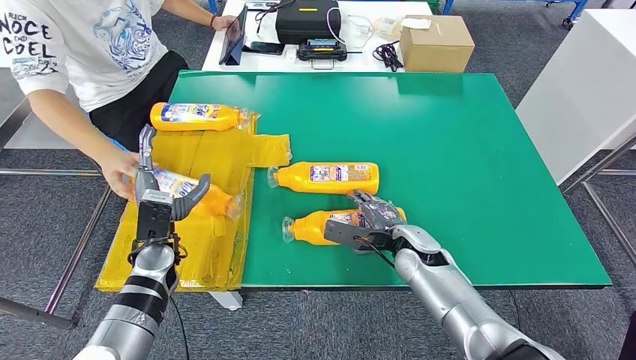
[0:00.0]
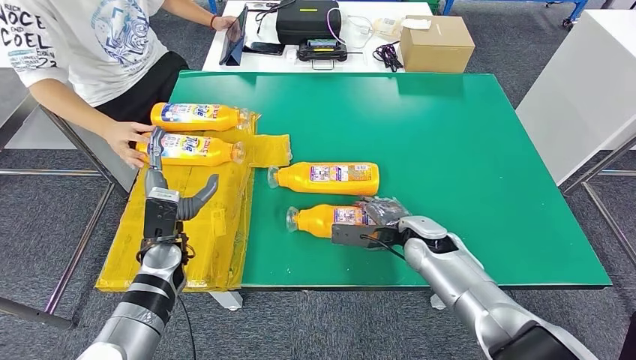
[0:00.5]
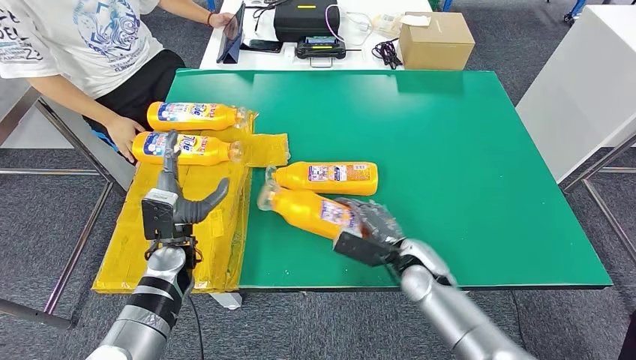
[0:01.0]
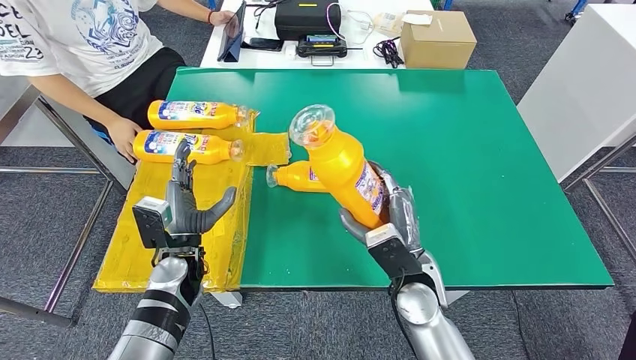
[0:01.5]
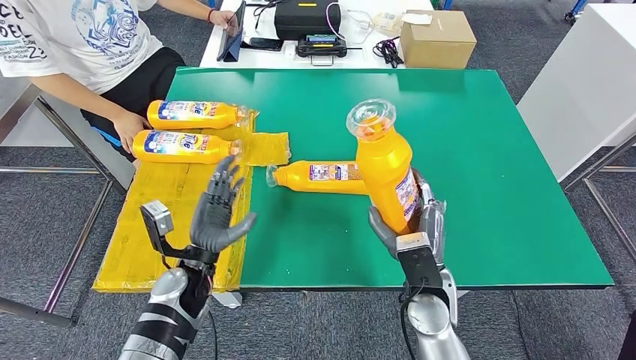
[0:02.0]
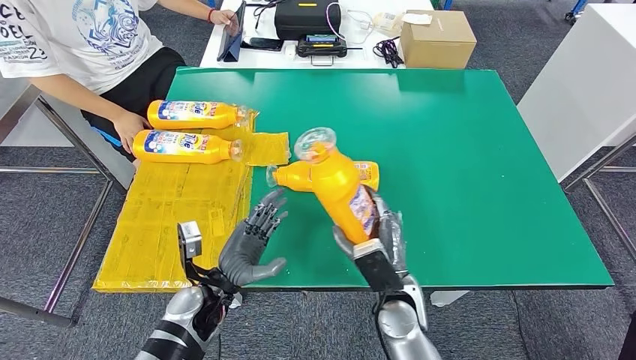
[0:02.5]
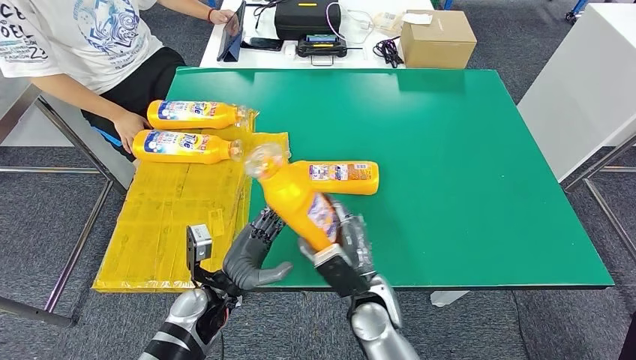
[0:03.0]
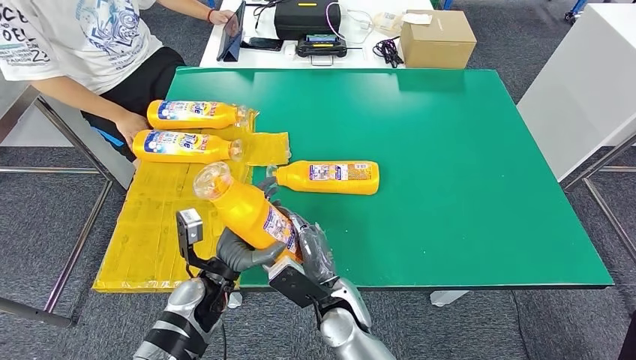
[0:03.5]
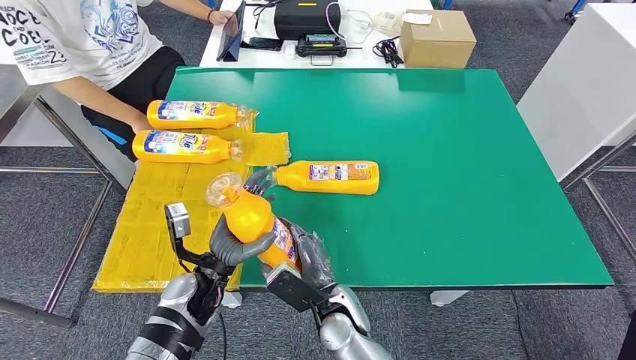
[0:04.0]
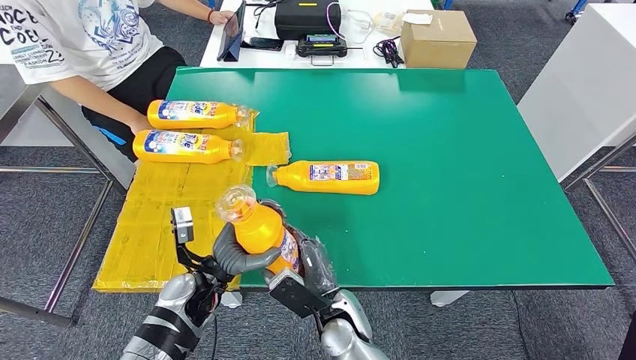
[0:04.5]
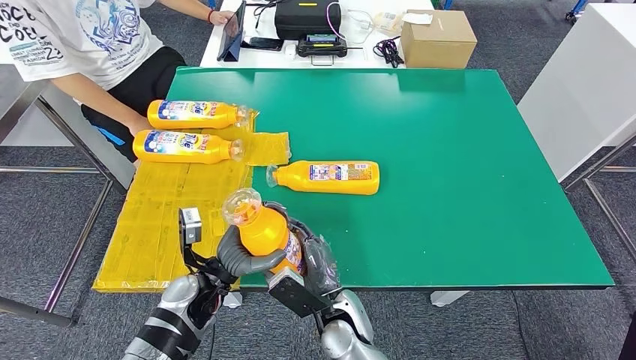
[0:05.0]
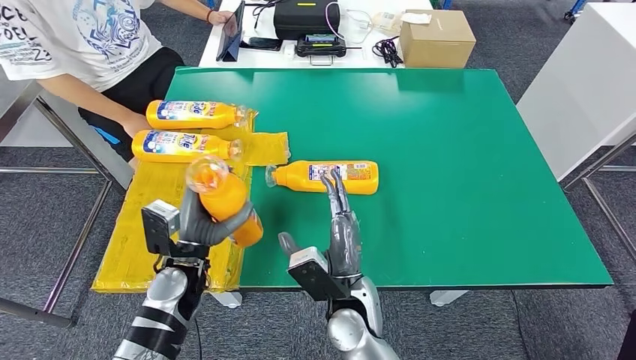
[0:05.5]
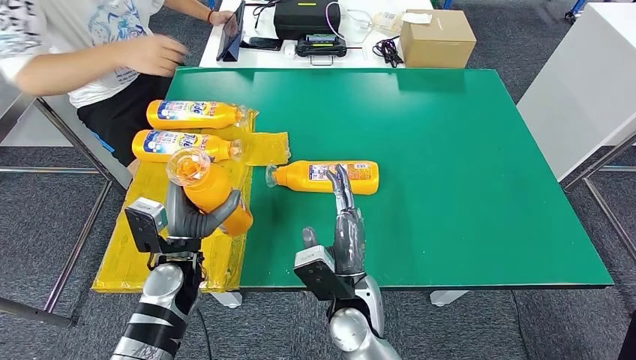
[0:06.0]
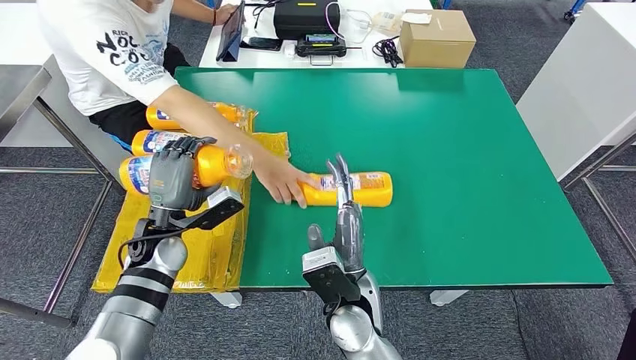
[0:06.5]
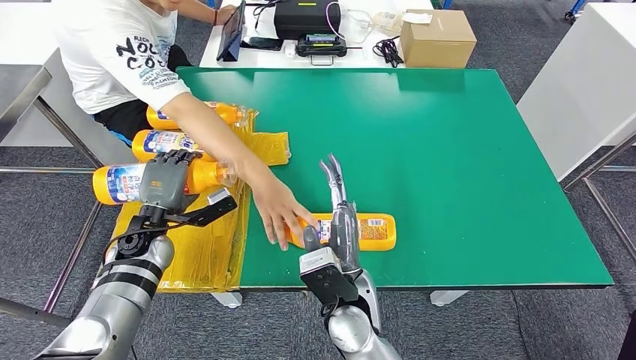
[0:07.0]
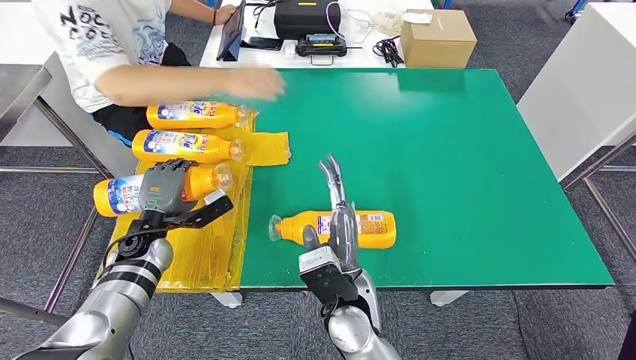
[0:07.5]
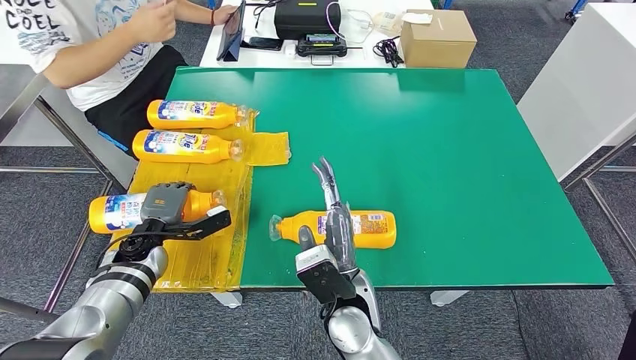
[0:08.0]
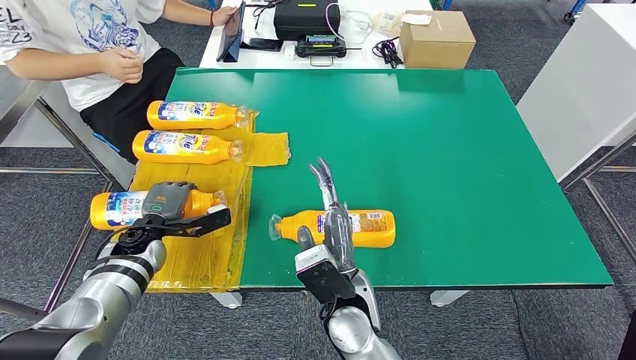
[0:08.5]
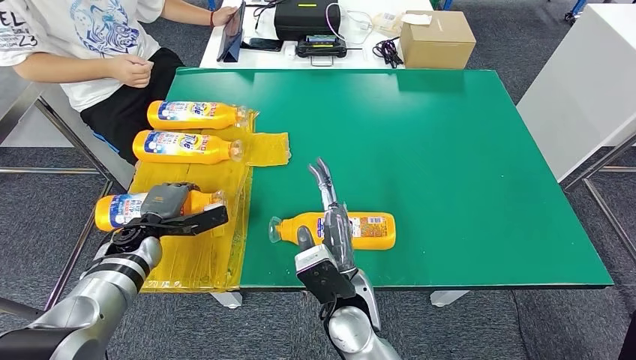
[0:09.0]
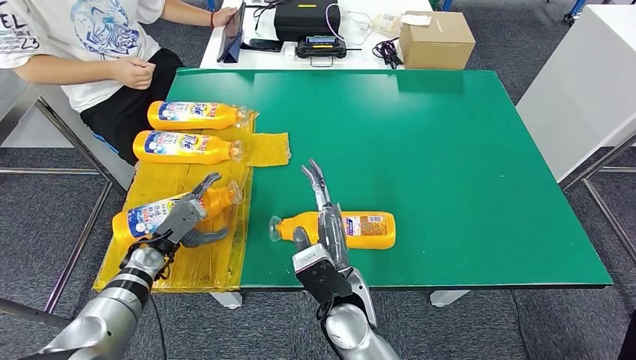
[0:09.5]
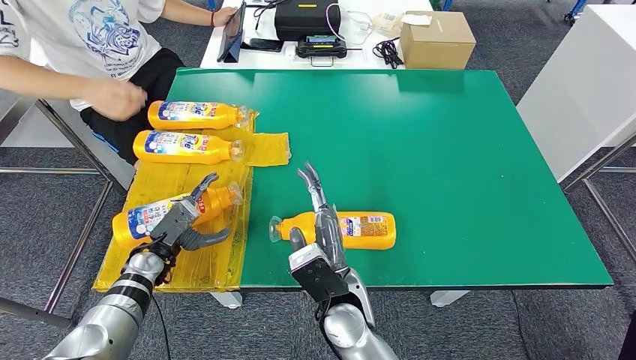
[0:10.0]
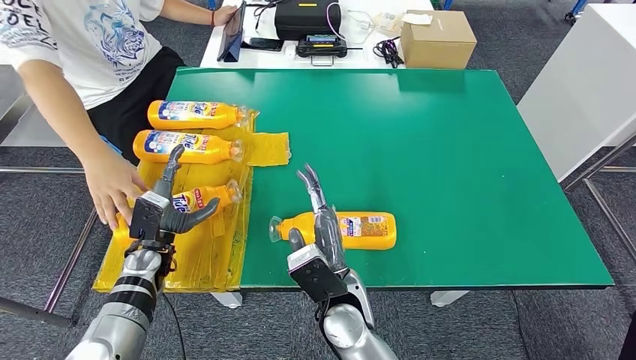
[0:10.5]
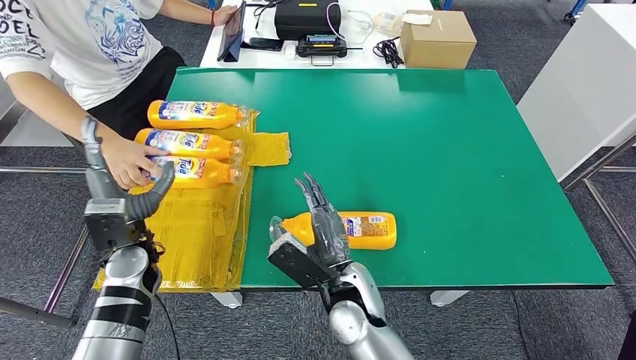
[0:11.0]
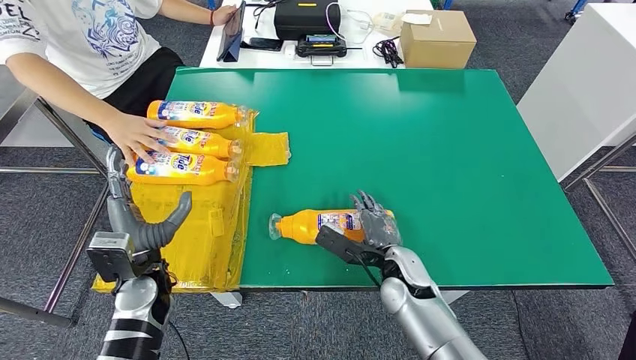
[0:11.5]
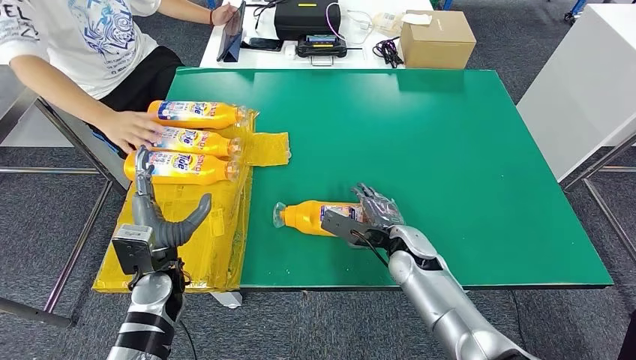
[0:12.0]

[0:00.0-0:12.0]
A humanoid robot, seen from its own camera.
Step, 0:00.0 to 0:02.5: Pick up the fast-moving consumer goods bottle from the table.
Step, 0:03.0 to 0:10.0: Flip the fast-moving consumer goods bottle to the front side.
0:02.0 to 0:04.0: The right hand shifts approximately 15 cm to the left and downward.
0:04.0 to 0:06.0: The right hand shifts approximately 5 cm upward, while the left hand changes place by some 5 cm.
0:06.0 to 0:08.0: The left hand travels to the left and forward by some 10 cm.

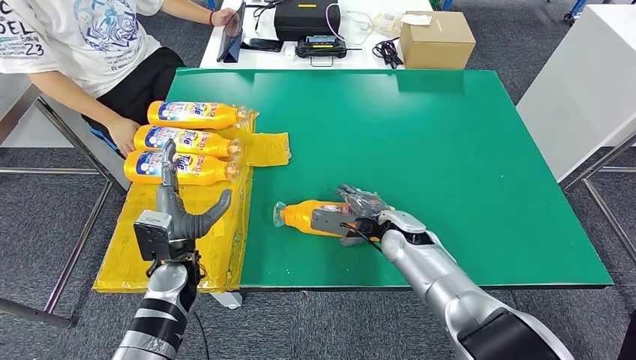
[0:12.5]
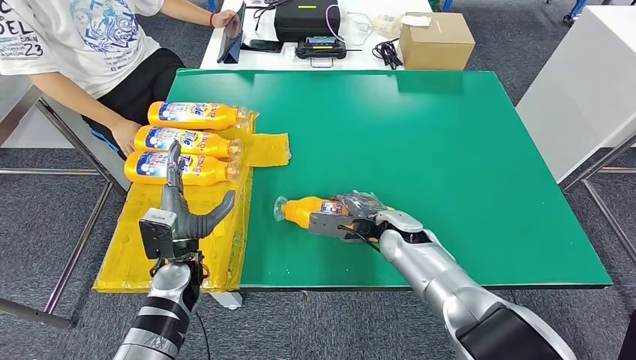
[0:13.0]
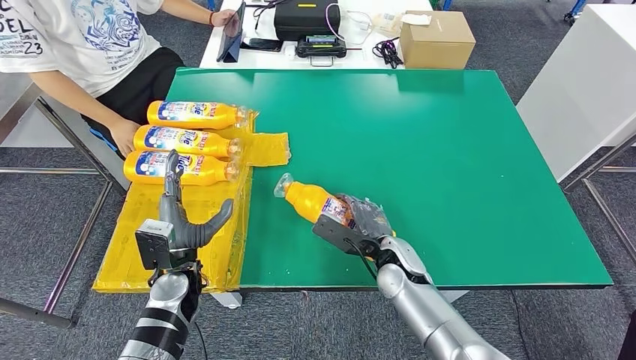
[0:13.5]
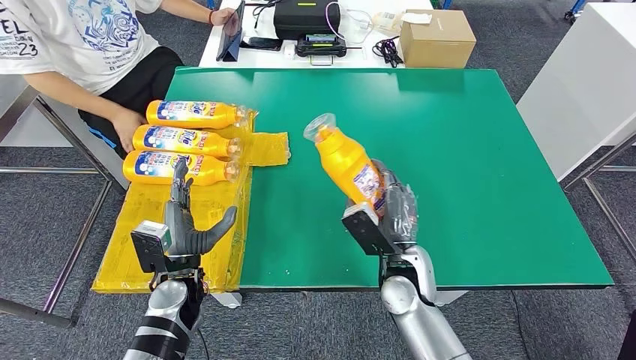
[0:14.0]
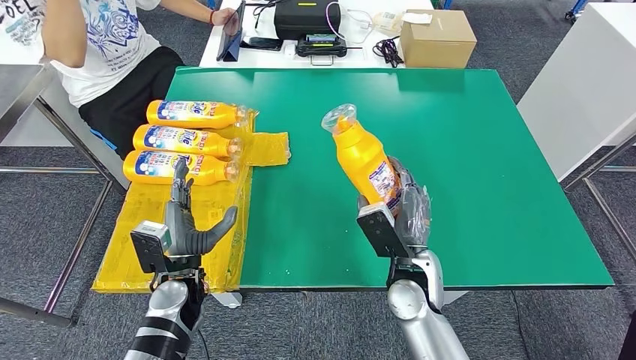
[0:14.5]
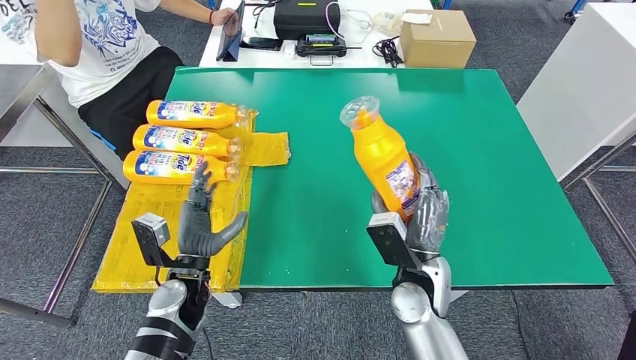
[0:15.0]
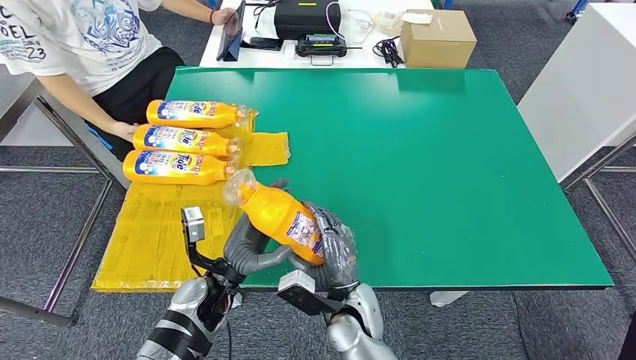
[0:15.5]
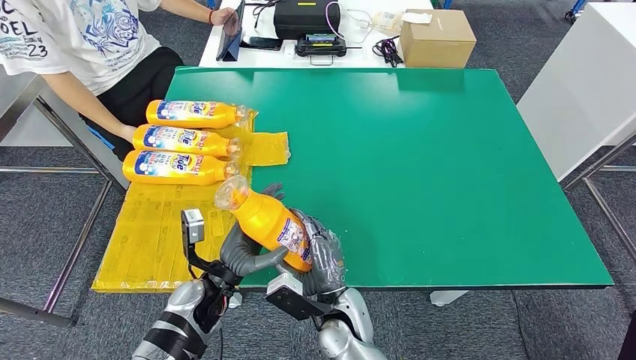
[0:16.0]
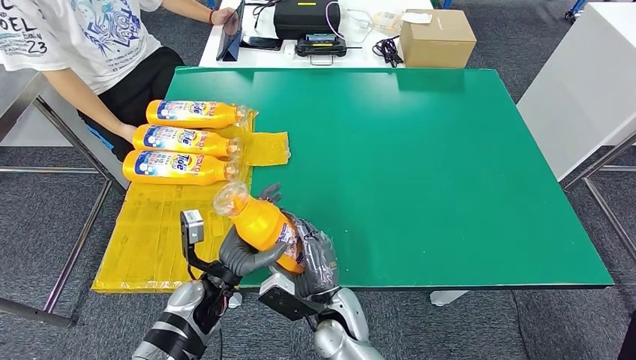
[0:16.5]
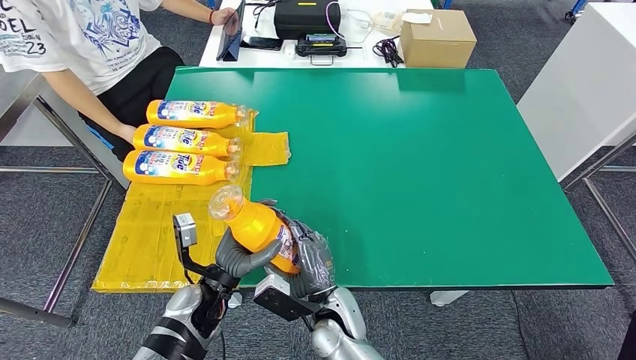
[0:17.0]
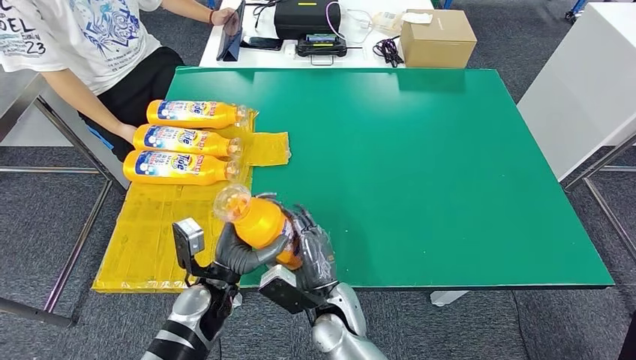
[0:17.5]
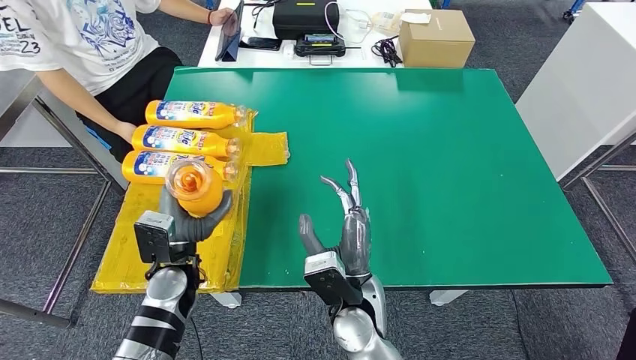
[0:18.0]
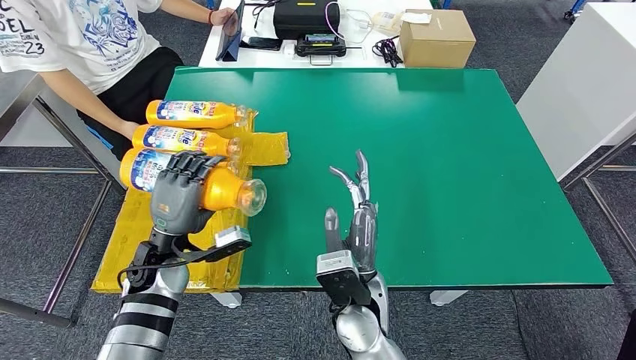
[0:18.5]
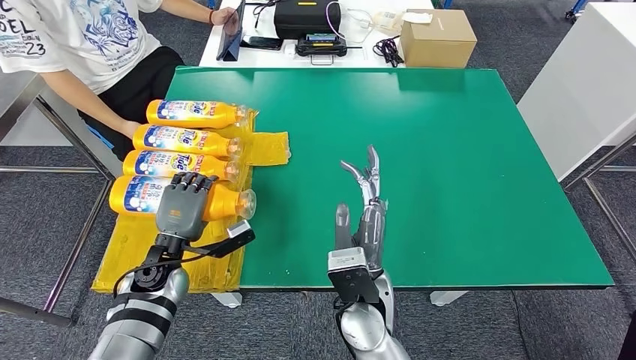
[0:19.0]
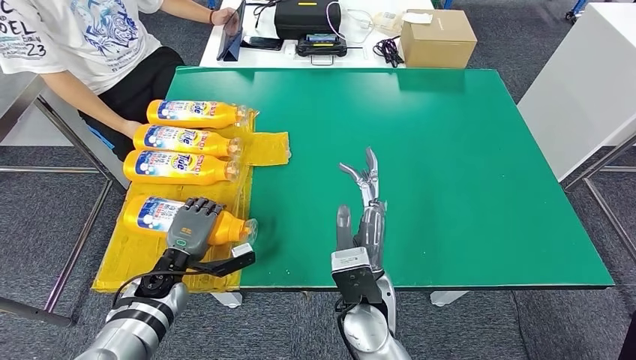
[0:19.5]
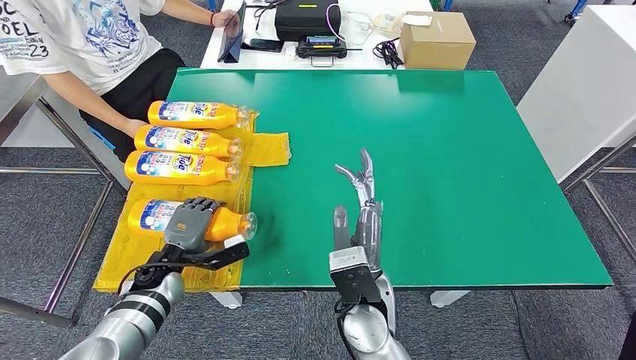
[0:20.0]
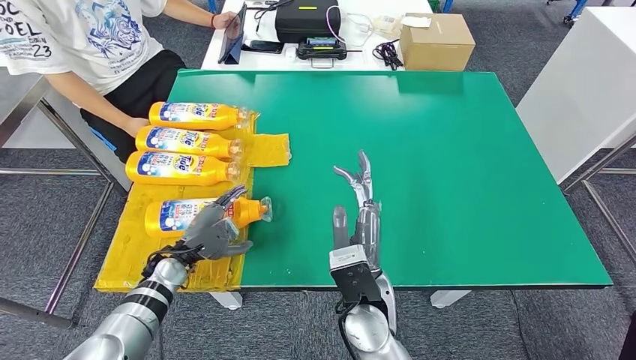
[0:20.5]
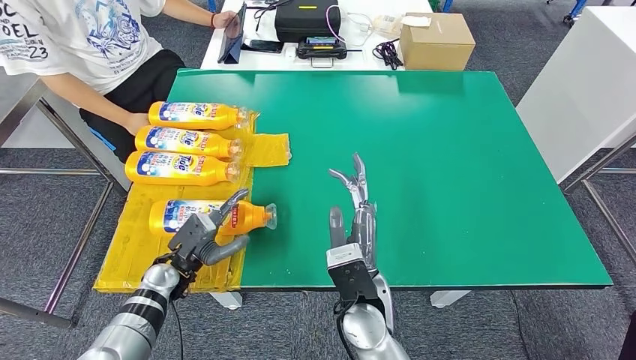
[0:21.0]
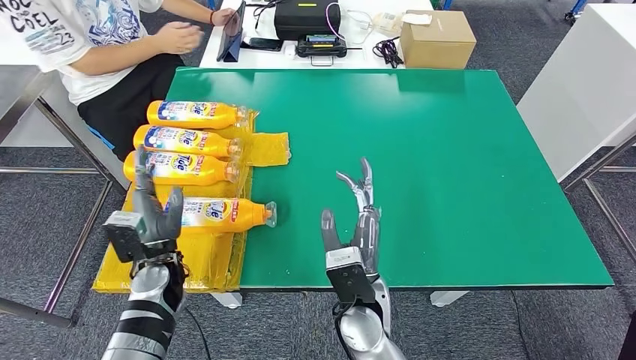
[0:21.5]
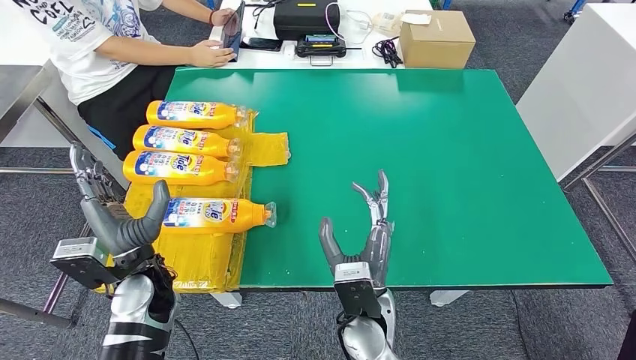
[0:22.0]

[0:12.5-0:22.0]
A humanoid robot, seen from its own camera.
Step, 0:12.5 to 0:15.5: Pick up the fast-moving consumer goods bottle from the table.
Step, 0:16.0 to 0:22.0: Flip the fast-moving consumer goods bottle to the front side.
0:14.5 to 0:16.5: The right hand is displaced to the left and downward by approximately 15 cm.
0:16.5 to 0:18.0: The right hand is displaced upward by about 10 cm; the left hand travels to the left by some 5 cm.
